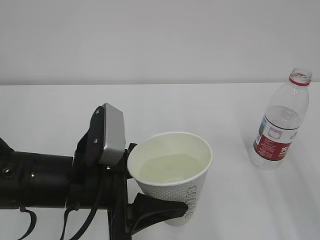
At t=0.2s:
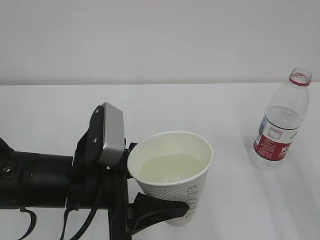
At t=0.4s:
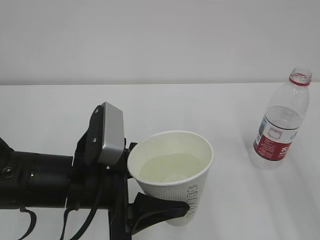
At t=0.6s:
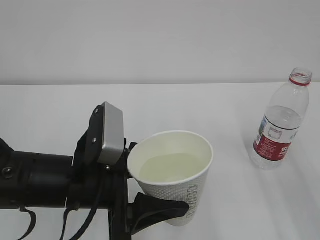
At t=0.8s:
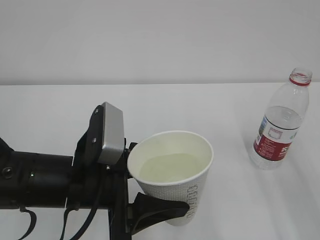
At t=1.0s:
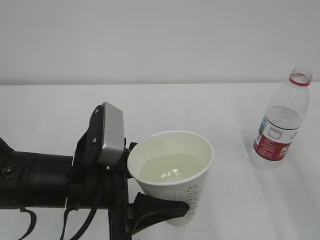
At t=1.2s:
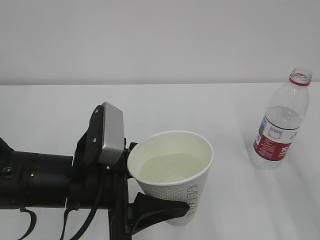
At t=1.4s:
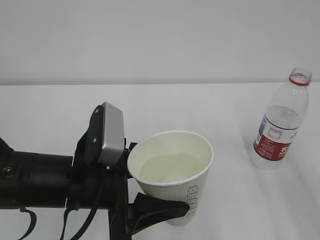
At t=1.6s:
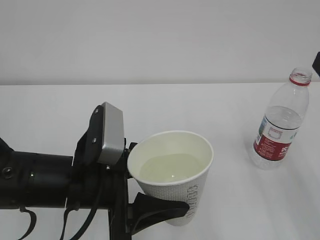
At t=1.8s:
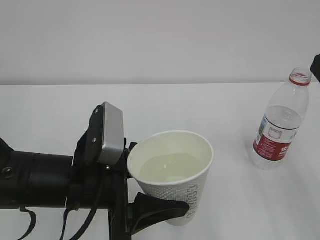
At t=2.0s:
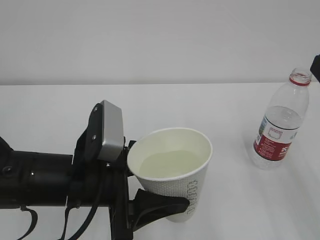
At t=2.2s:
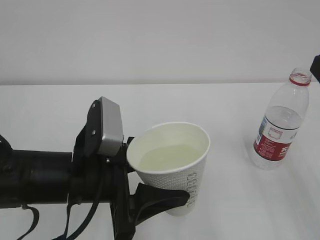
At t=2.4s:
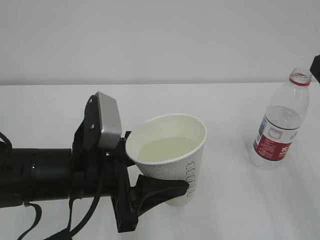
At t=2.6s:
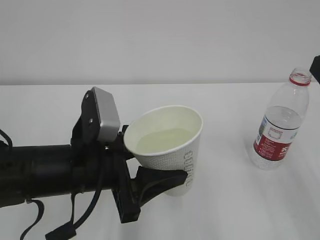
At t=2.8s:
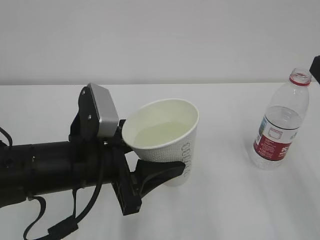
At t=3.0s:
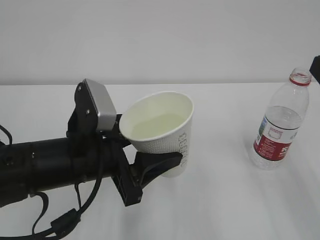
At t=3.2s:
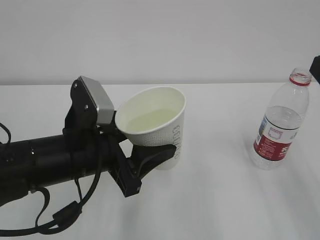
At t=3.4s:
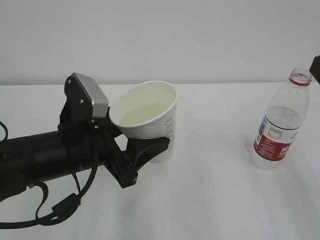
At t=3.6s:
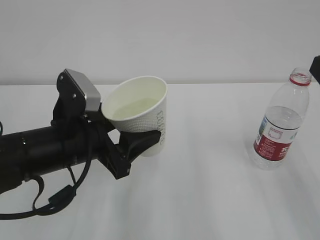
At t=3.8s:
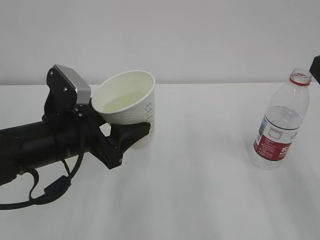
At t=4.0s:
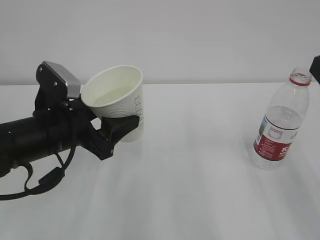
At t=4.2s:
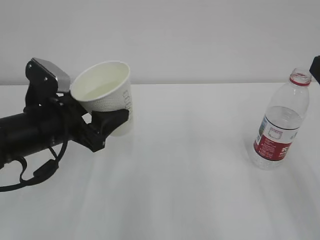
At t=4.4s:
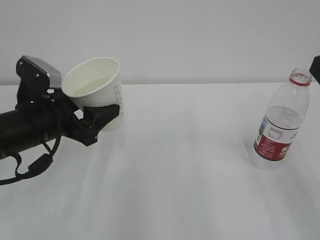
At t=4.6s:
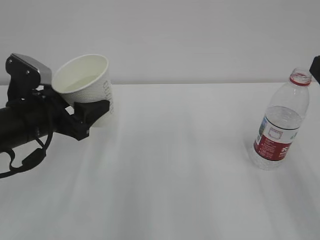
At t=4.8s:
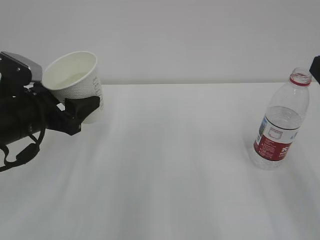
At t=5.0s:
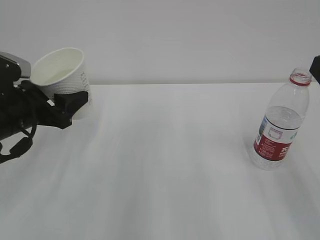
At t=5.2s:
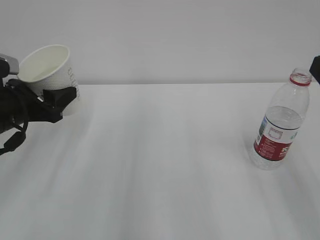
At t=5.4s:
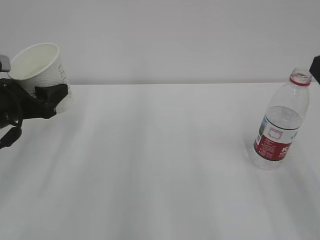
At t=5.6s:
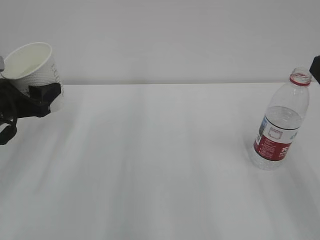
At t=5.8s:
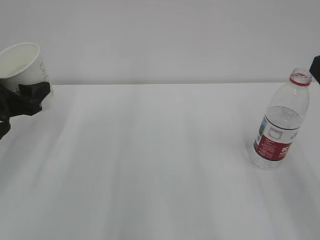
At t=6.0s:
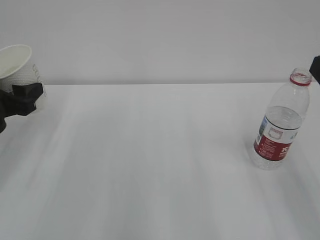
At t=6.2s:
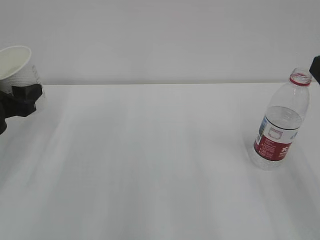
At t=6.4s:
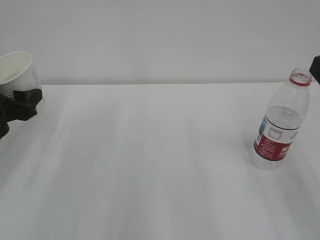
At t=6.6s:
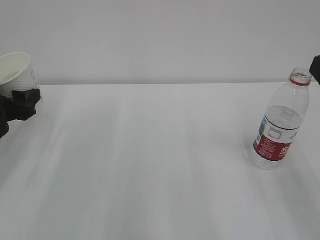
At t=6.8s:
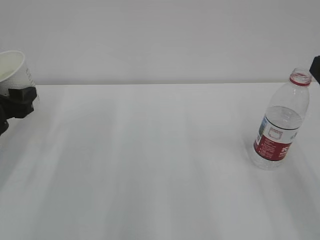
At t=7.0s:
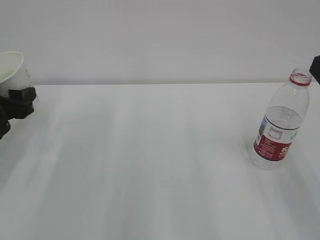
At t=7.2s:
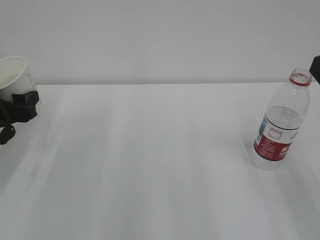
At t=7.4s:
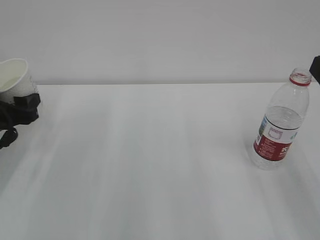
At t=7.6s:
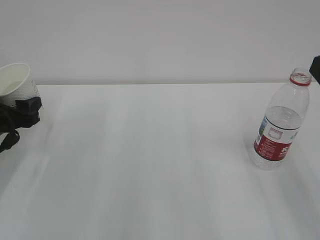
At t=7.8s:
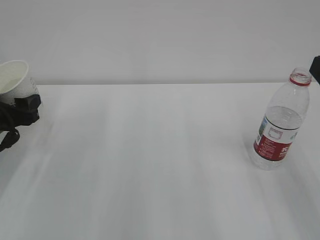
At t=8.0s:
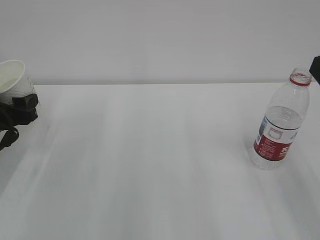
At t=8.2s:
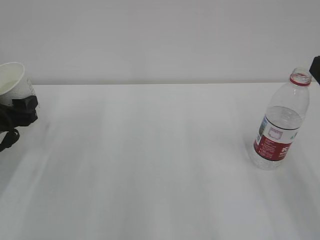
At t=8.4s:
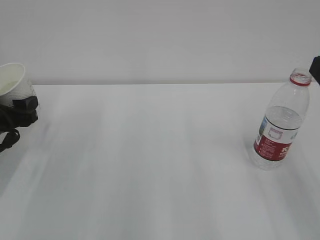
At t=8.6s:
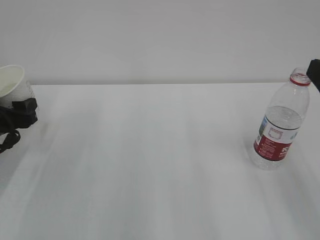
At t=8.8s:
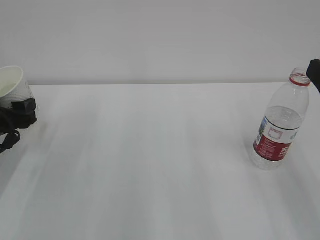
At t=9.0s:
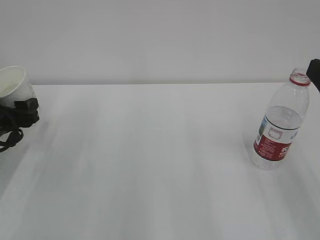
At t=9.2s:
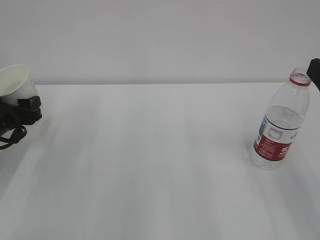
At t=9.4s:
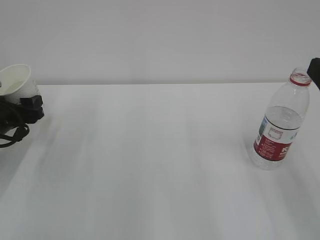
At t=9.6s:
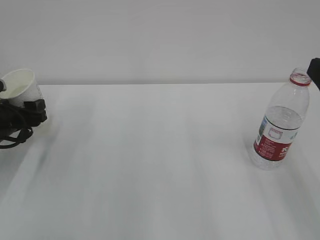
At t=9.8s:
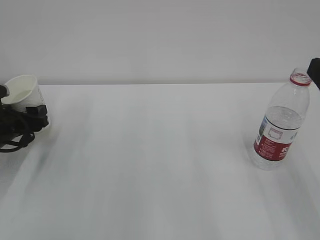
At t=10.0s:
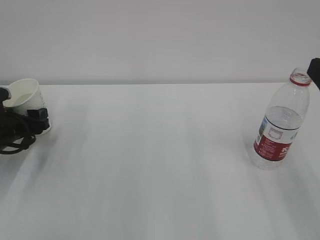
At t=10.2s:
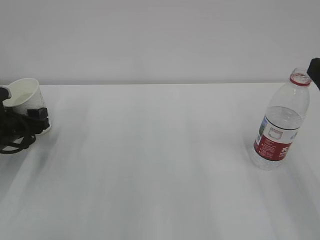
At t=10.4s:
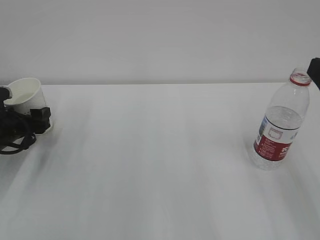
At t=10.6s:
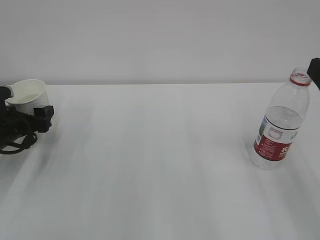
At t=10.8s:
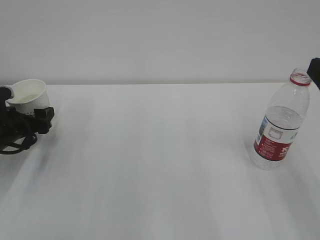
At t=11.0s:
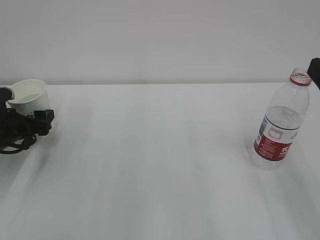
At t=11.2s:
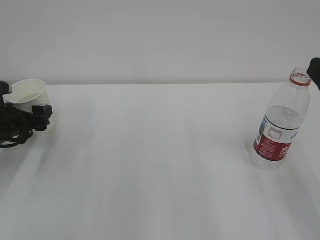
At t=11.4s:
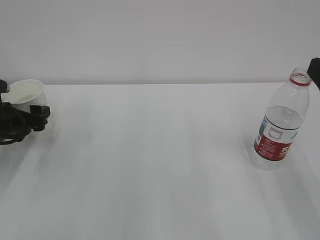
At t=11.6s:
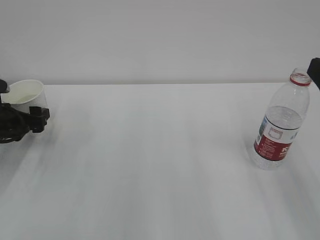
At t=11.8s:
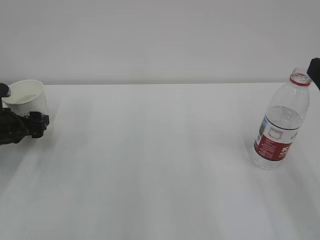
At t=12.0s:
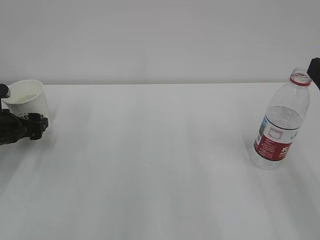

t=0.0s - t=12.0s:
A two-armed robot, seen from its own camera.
t=1.6s - t=3.0s: The grippers stay close to where they were, moving slightly.
t=3.0s - t=4.4s: The left gripper is displaced to the left and forward by some 10 cm.
t=4.4s - t=6.0s: The left gripper moves to the left, approximately 10 cm.
t=6.0s - t=7.6s: The grippers make only small movements.
t=7.6s - t=9.0s: Both grippers stay about where they are.
t=9.0s - t=10.4s: The grippers stay close to where they were, moving slightly.
t=10.4s - t=12.0s: The left gripper opens.

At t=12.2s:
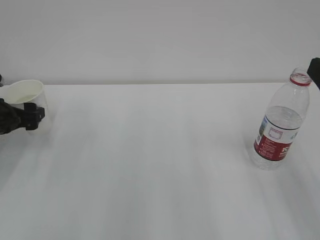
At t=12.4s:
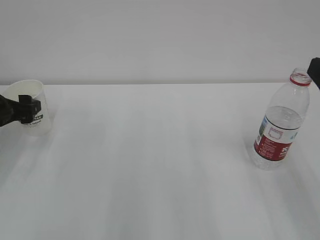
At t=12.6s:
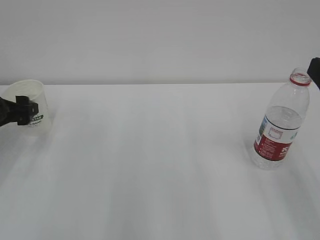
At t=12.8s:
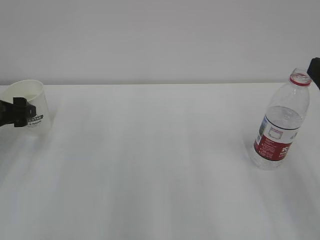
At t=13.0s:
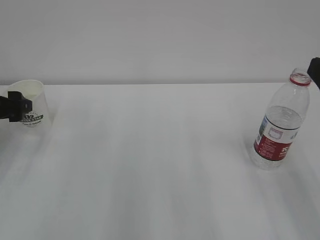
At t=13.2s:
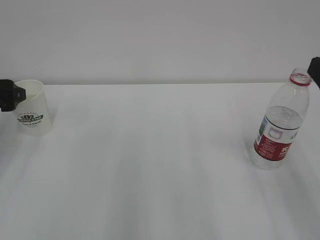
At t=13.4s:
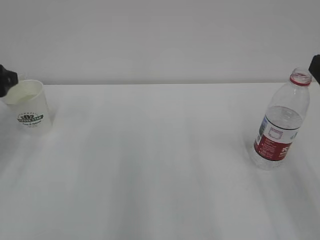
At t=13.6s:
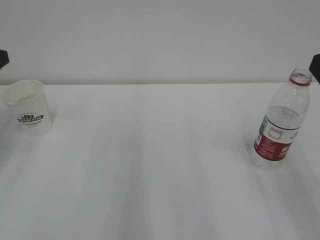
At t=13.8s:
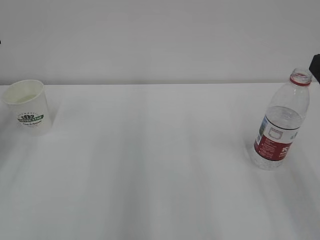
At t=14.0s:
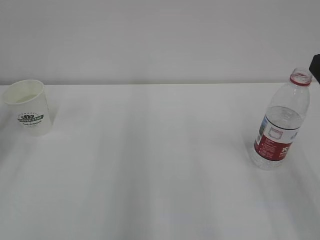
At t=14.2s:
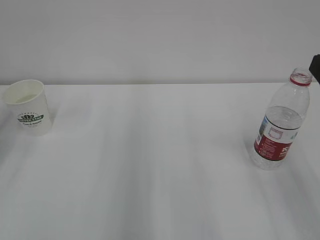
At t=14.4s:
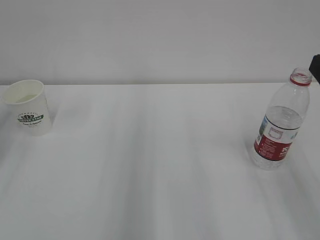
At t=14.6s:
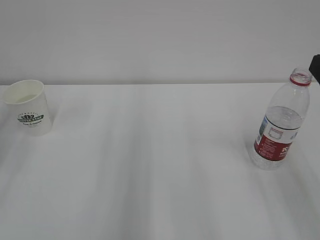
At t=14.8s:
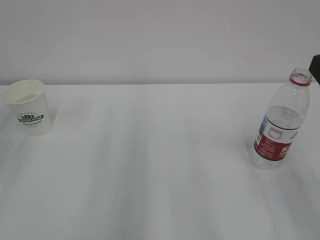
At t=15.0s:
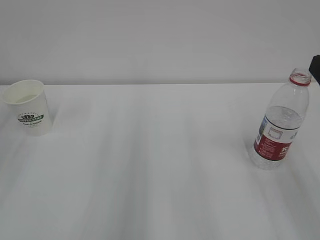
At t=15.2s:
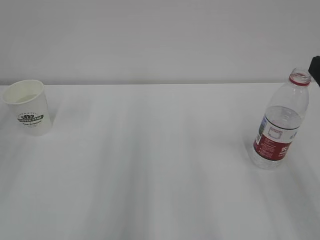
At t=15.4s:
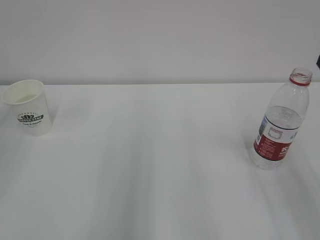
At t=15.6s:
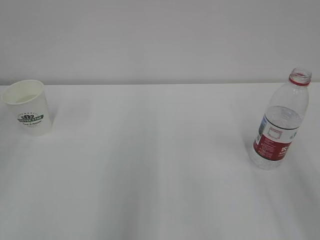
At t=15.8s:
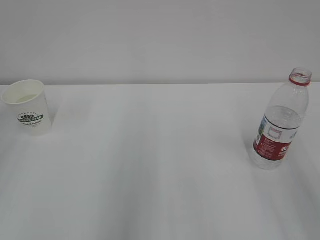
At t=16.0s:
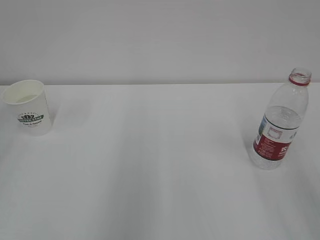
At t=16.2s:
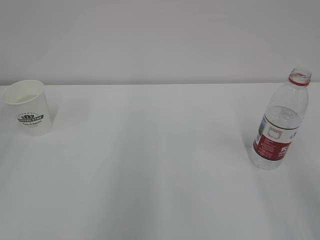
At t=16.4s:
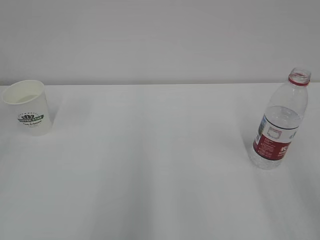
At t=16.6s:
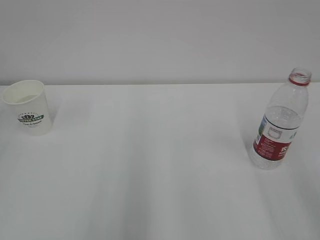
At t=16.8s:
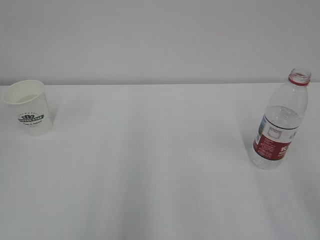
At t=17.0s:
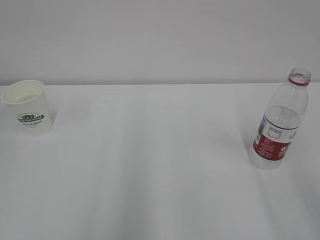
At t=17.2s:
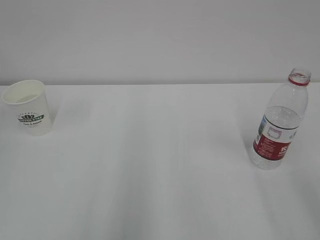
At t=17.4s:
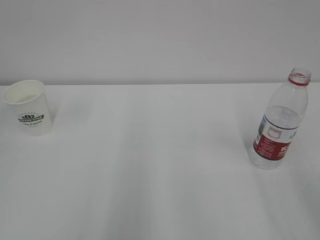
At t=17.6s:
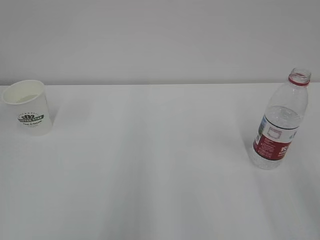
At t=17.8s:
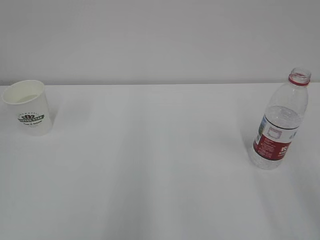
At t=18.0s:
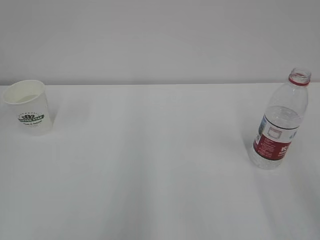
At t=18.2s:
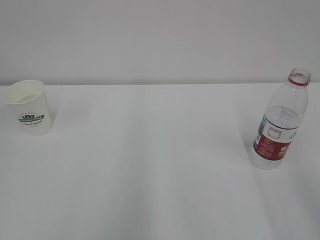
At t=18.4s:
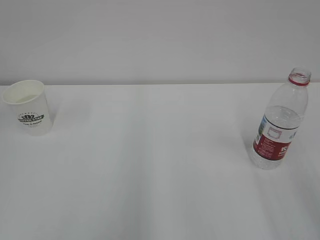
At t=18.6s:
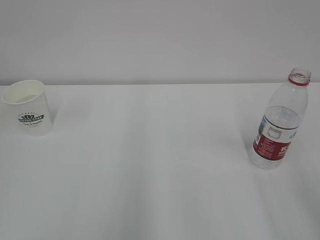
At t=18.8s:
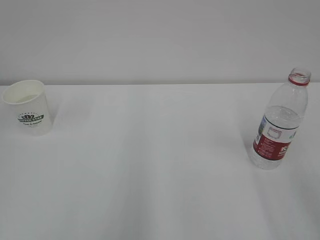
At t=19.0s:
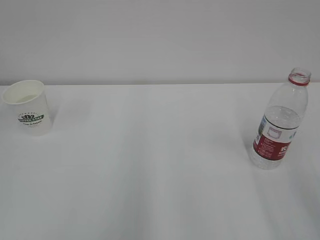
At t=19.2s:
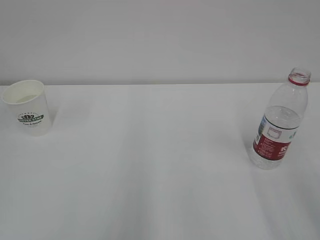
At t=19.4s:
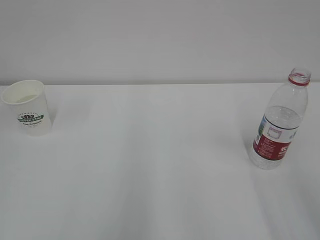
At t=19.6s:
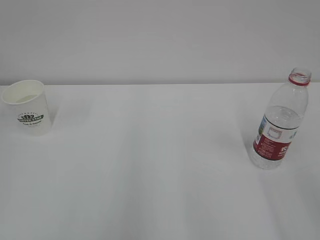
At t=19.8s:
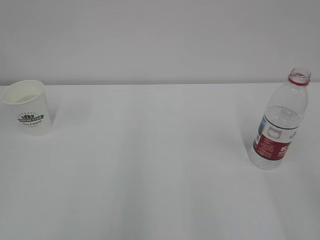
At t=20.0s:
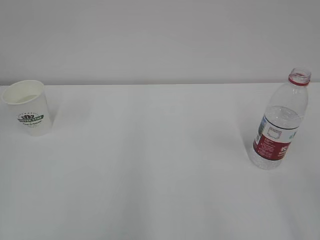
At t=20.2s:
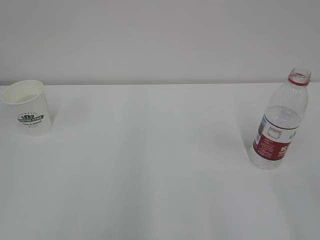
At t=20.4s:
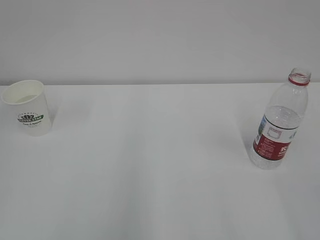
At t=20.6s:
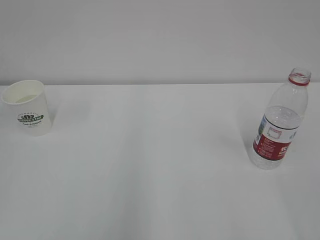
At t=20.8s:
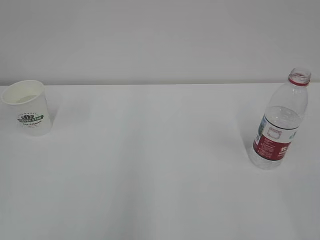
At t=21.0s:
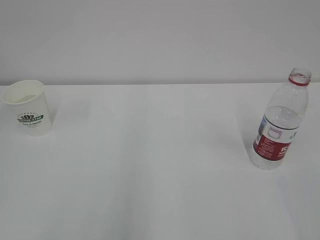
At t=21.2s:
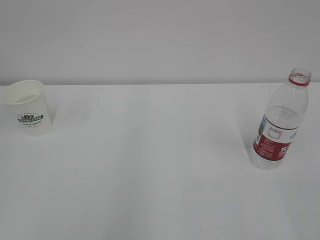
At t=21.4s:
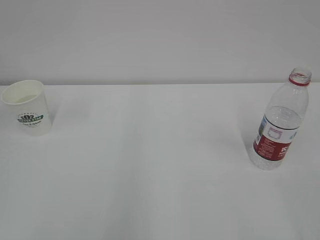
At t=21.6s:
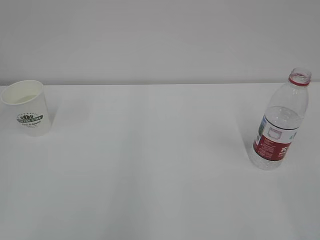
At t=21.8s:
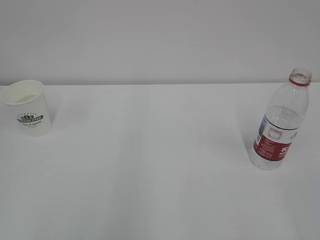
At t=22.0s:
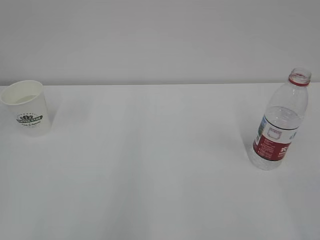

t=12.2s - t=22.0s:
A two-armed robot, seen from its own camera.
t=12.2s - t=13.6s: The left gripper travels upward by roughly 15 cm, and closes its fingers.

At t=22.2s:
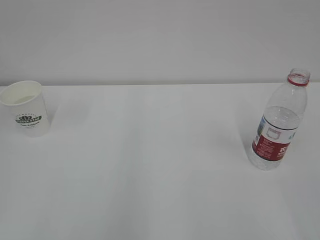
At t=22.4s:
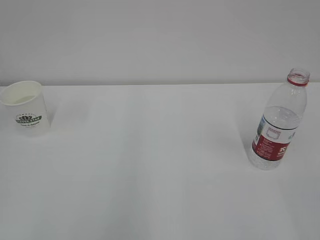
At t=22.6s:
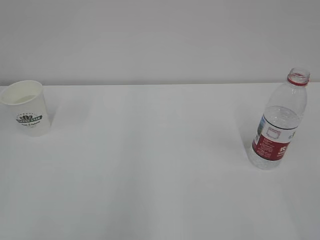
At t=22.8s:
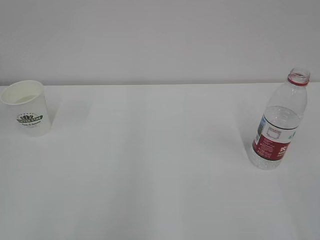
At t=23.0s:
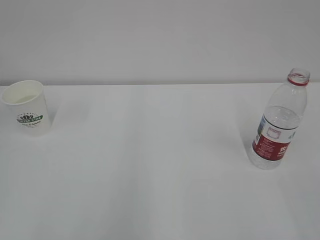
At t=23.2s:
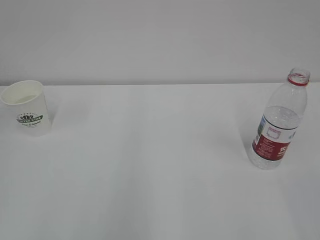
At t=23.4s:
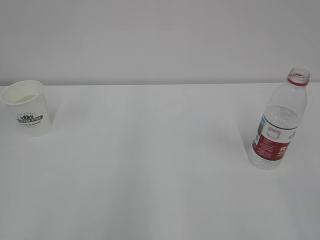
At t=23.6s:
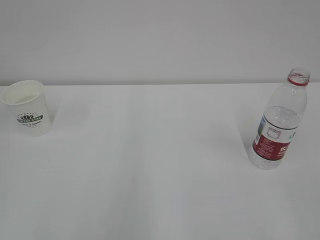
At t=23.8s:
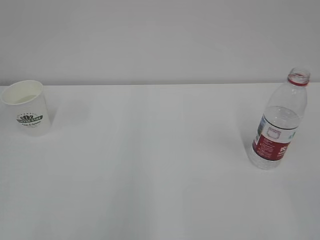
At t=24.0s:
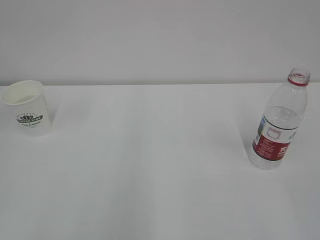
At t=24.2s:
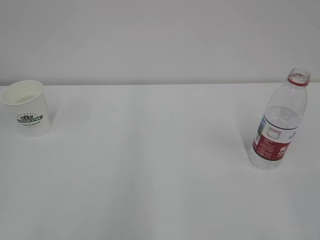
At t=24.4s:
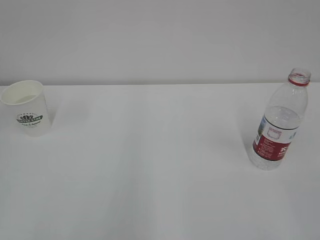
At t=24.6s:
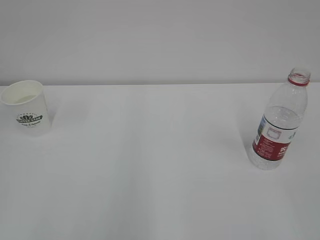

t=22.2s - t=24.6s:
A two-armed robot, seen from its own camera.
t=22.2s - t=23.4s: The two grippers keep their place.
